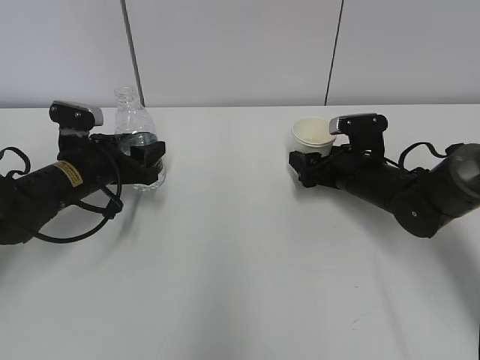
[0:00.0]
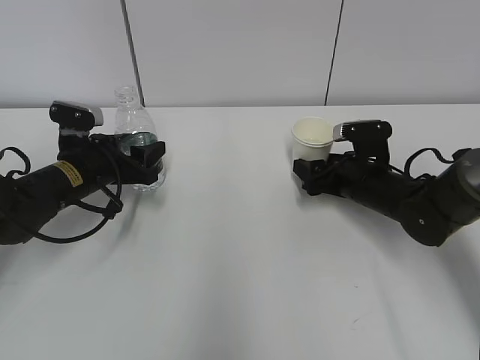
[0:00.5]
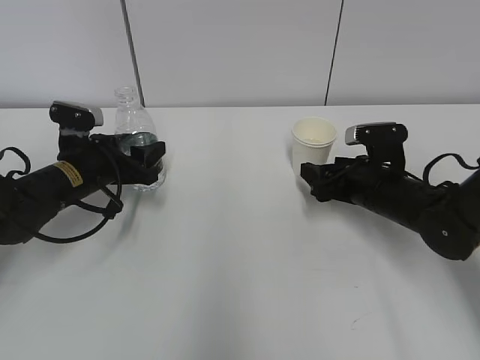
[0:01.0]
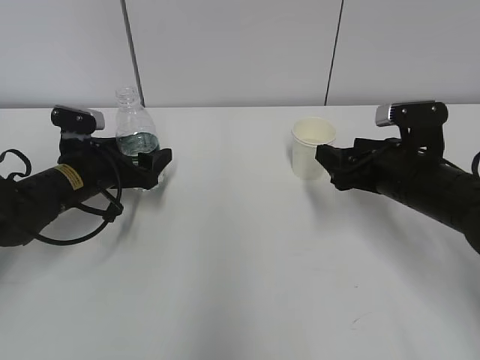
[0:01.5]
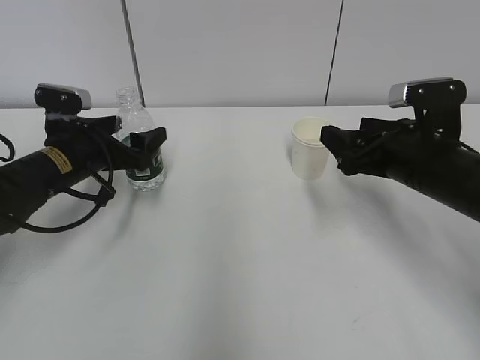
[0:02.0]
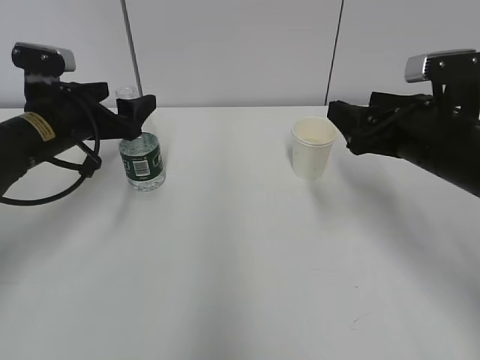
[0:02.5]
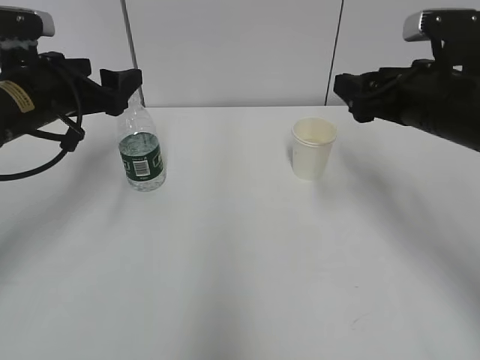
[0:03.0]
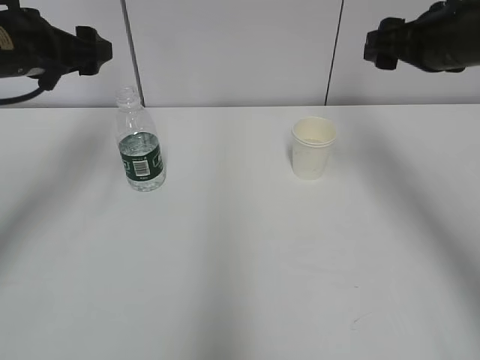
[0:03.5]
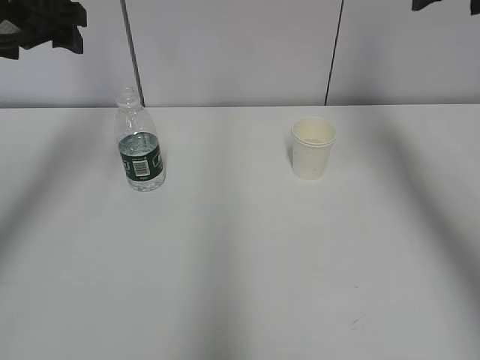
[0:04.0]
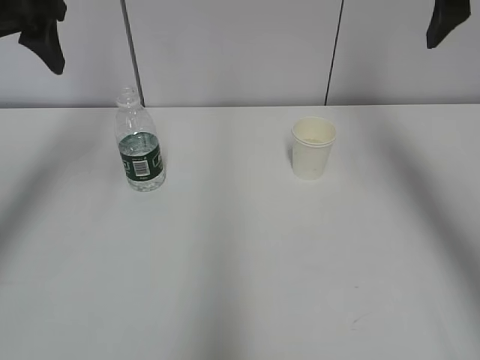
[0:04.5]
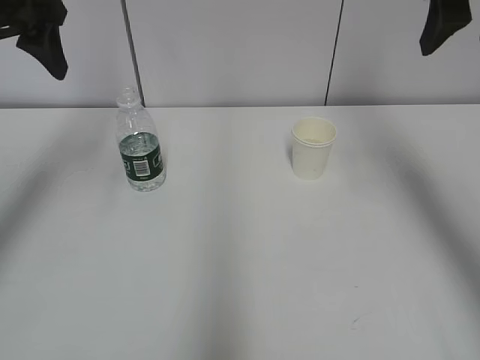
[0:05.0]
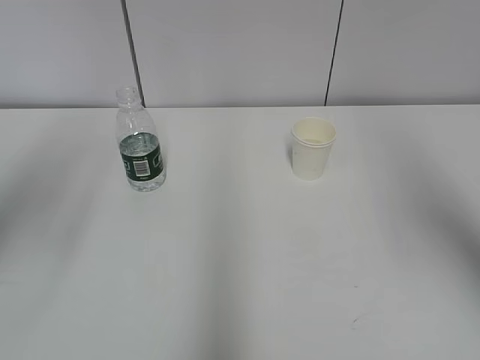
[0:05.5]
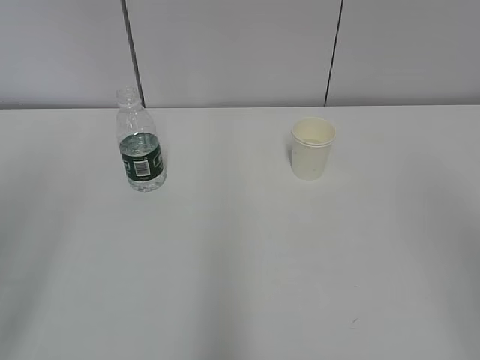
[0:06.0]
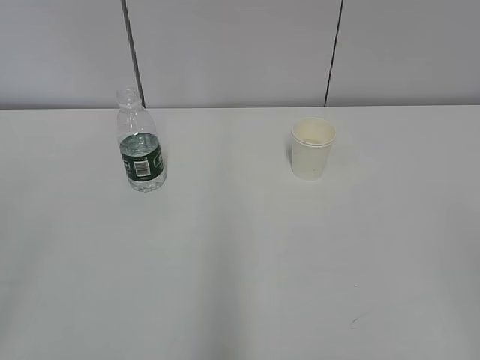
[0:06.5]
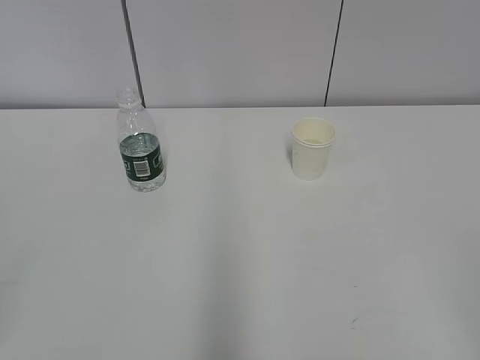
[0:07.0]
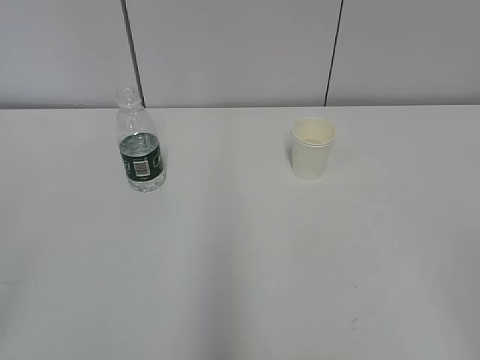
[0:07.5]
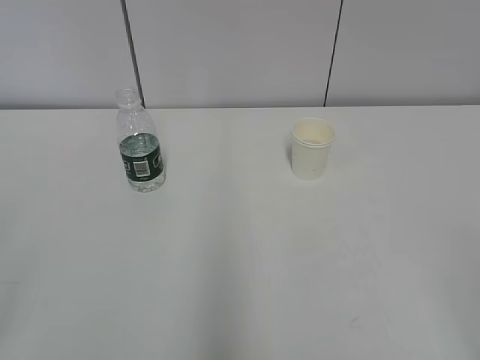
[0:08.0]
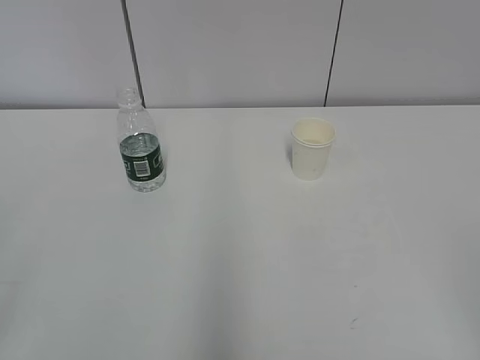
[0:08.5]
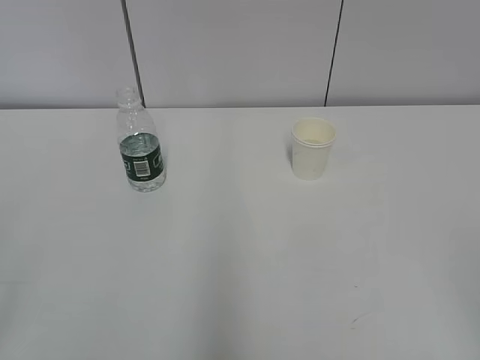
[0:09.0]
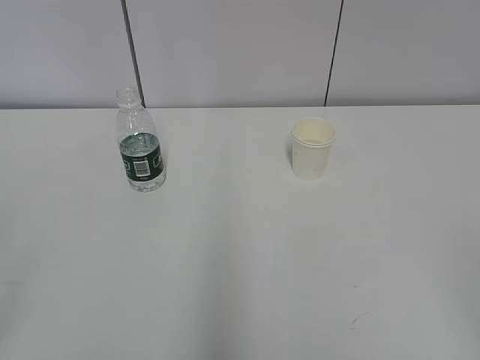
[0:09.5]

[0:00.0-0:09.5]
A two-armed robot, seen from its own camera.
0.0 to 2.0 s: The right gripper goes roughly 15 cm upward and backward, and closes. The left gripper opens up.
2.0 to 4.0 s: The two grippers go roughly 20 cm upward.
4.0 to 5.5 s: Both grippers move backward, roughly 15 cm.
5.5 to 7.5 s: The right gripper shifts about 25 cm backward and downward.

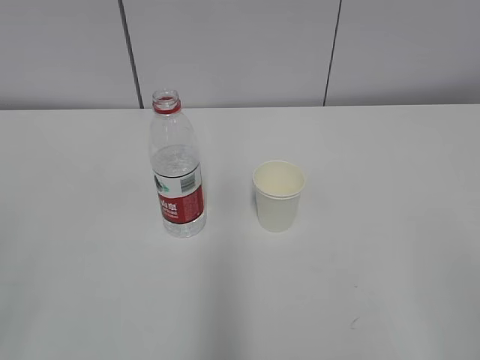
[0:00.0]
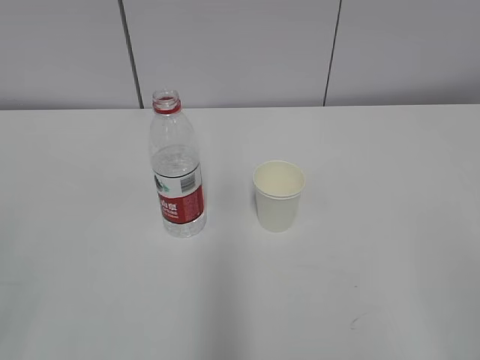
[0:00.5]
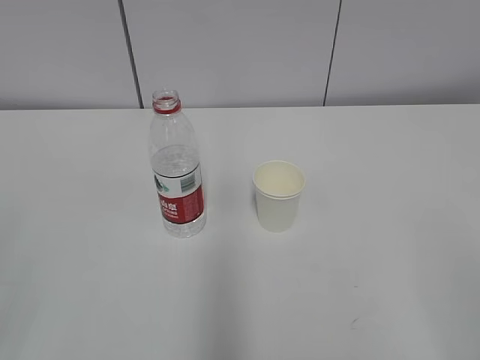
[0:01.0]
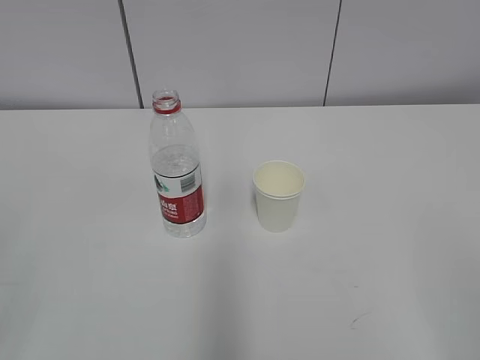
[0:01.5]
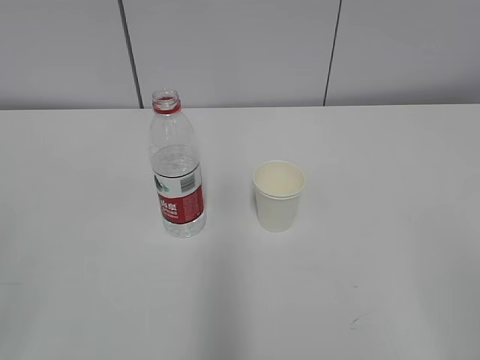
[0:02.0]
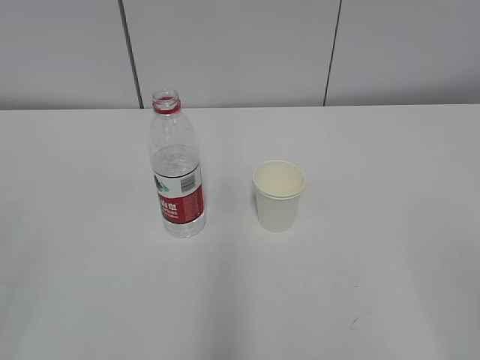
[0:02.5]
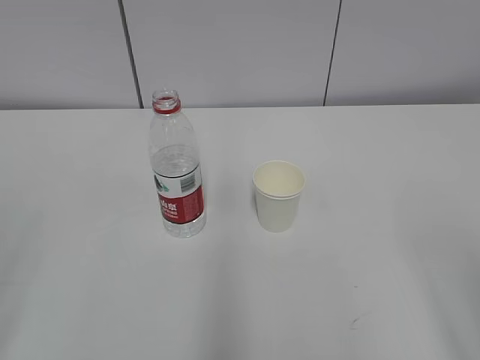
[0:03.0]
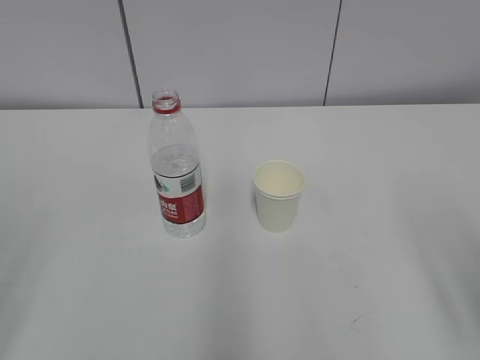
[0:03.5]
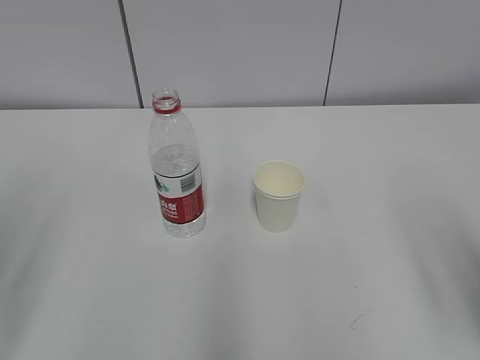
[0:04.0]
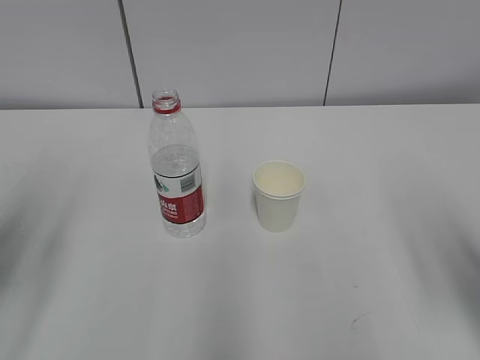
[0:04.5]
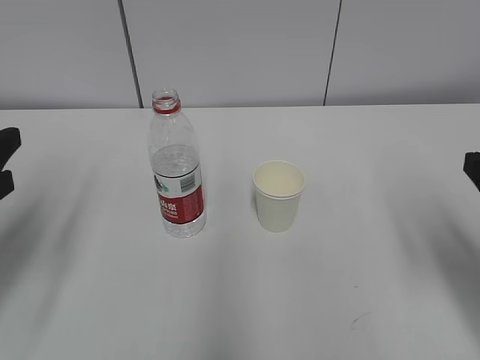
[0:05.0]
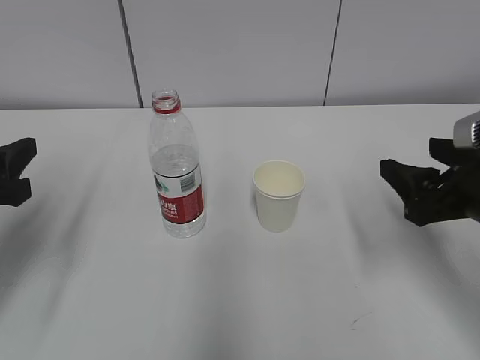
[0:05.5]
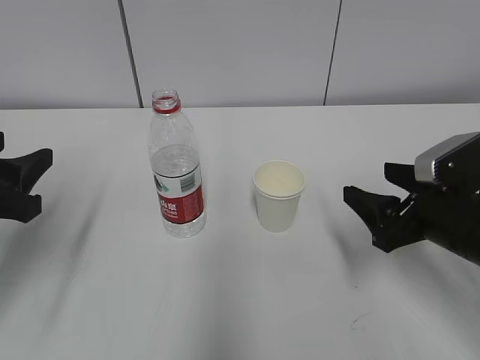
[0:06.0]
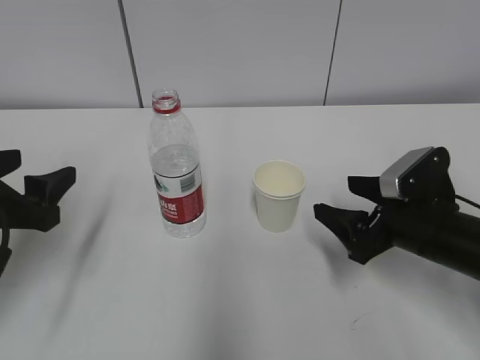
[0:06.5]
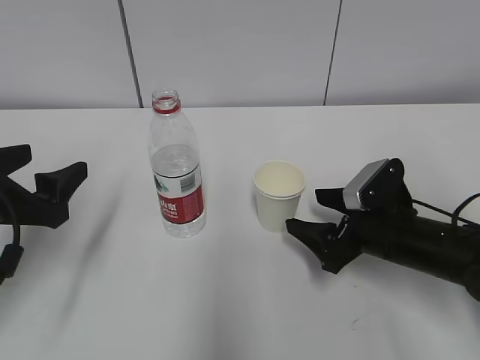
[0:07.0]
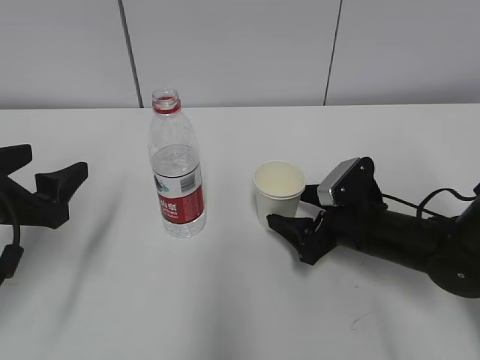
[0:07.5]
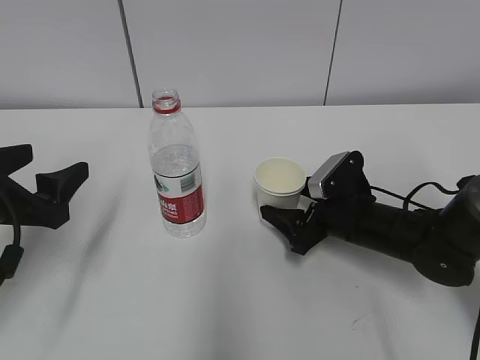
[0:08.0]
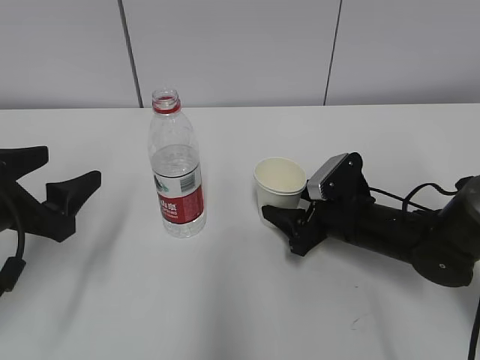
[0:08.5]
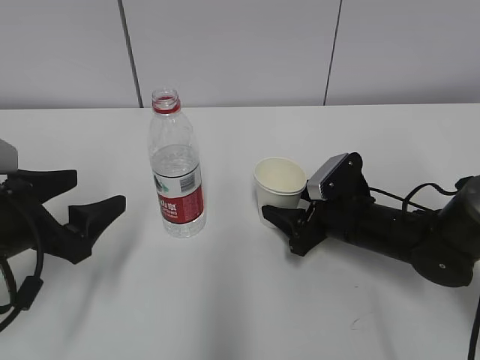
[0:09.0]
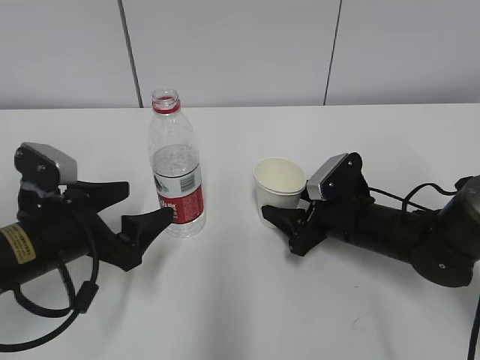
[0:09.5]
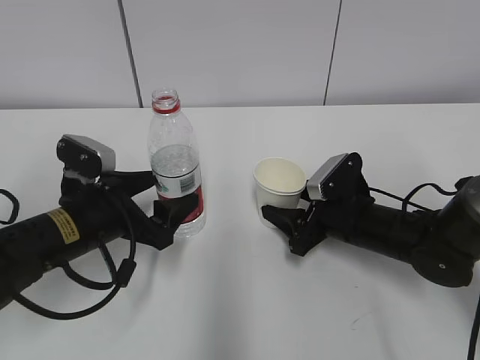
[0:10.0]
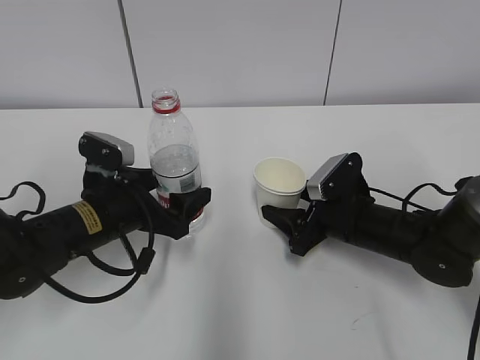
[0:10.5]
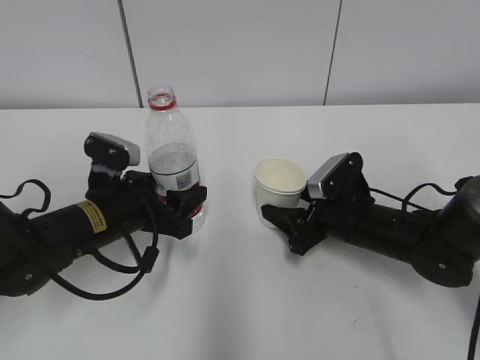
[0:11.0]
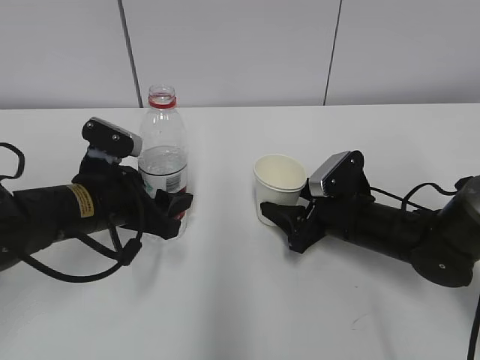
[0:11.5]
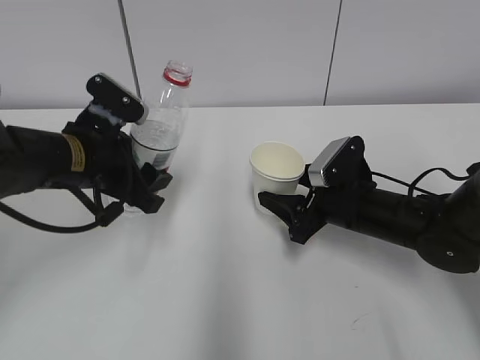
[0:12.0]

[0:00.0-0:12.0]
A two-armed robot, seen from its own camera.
Step, 0.0 to 7.0 s: Grab the paper cup with the right hand.
Step, 7.5 to 9.0 s: Grab the water bottle with the left hand.
4.0 to 6.0 s: The two grippers go approximately 15 cm forward and downward.
6.0 to 8.0 s: The right gripper moves forward, downward and to the left, approximately 15 cm; the left gripper opens its fingers.
8.0 to 10.0 s: The right gripper closes its fingers, while the left gripper shifts roughly 10 cm to the right and downward.
10.0 to 12.0 s: The left gripper travels upward by approximately 5 cm, and closes its fingers.

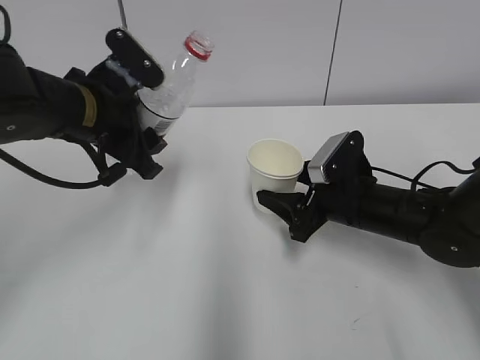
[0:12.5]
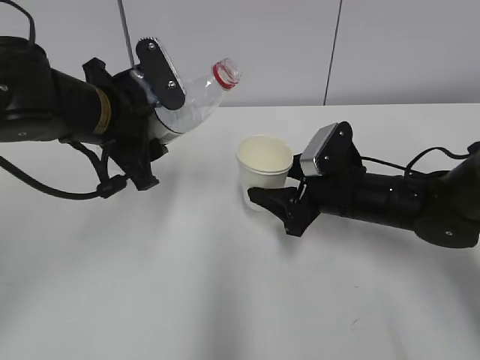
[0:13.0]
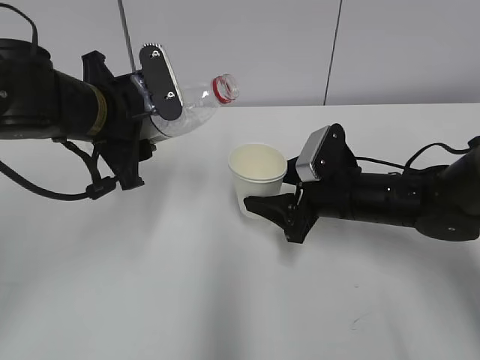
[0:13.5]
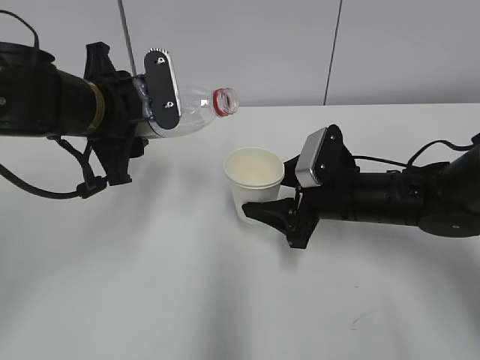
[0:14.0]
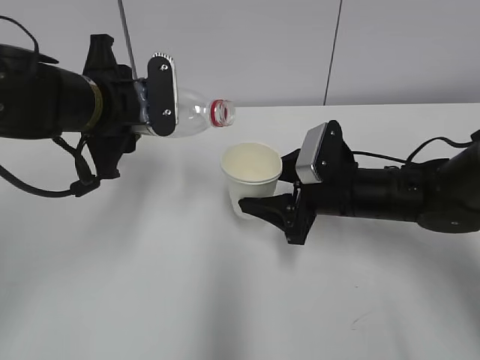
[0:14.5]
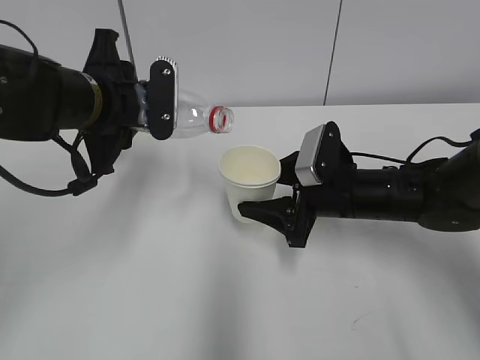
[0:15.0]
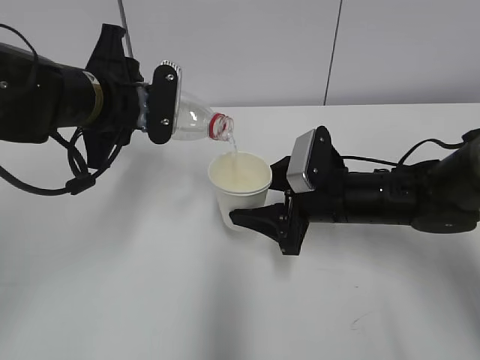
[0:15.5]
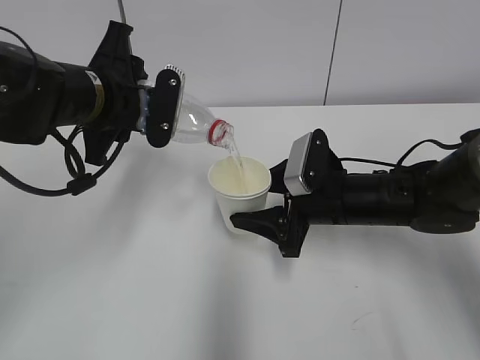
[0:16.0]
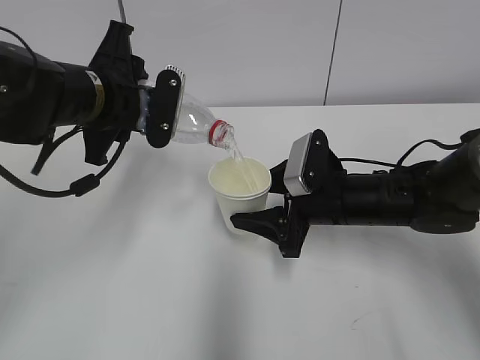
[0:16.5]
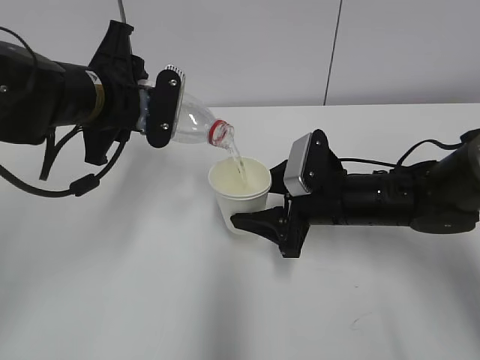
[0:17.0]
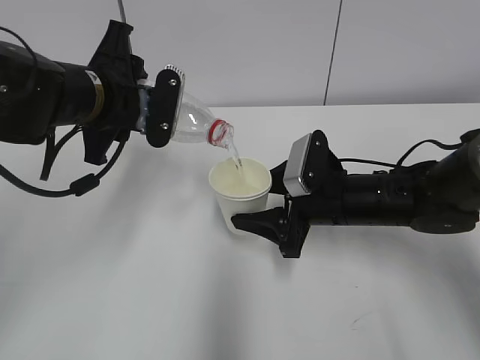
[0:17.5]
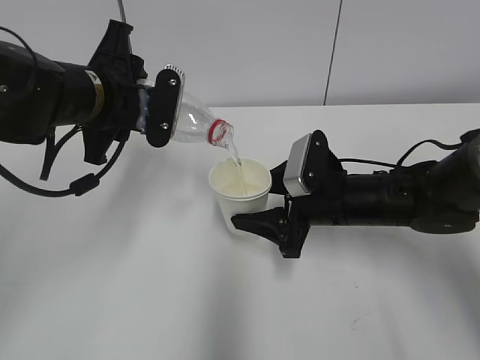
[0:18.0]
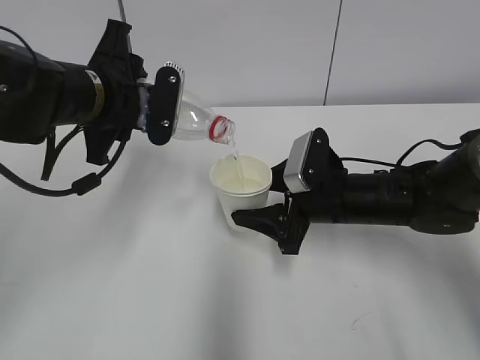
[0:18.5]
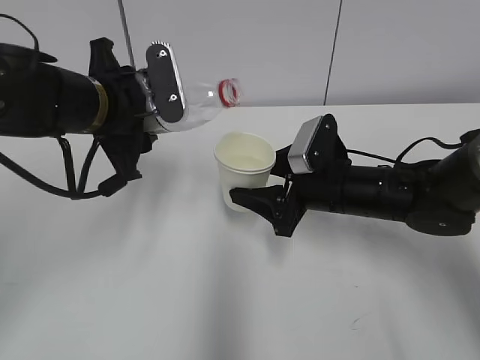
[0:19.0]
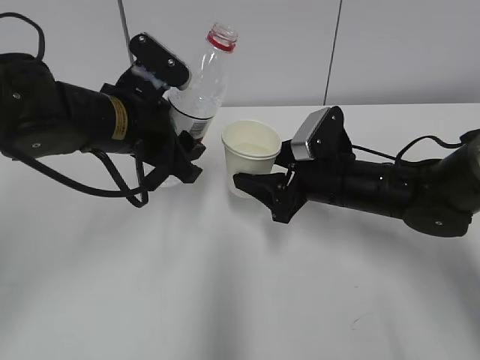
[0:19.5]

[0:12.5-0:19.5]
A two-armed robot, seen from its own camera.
Step, 13.0 to 15.5 s: Fill water with the right hand.
Step, 13.0 to 15.5 s: Pour water with the left hand.
Step, 16.0 to 17.0 s: Collect water with the left hand.
Step, 17.5 to 18.5 s: Place the paper cup with the right hand.
Step, 17.5 to 18.5 s: Place the water bottle with the left hand.
14.5 to 16.0 s: The grippers make only small movements.
16.0 to 17.5 s: Neither gripper changes place.
